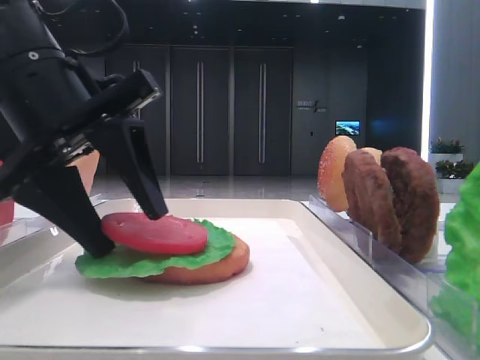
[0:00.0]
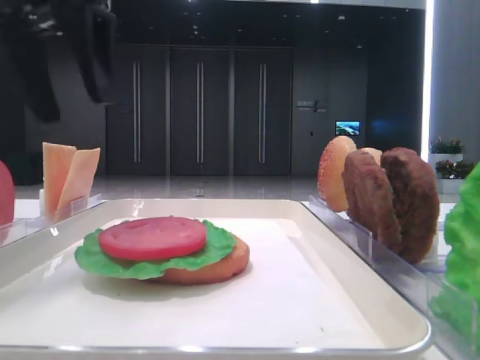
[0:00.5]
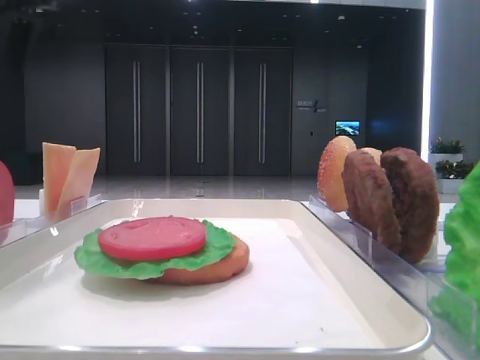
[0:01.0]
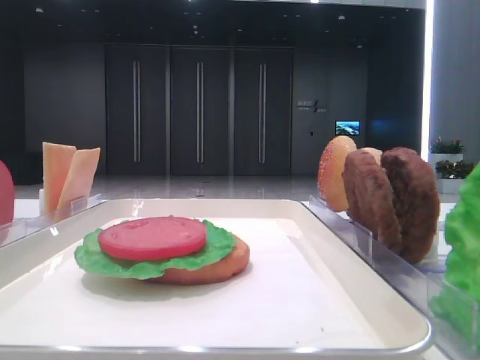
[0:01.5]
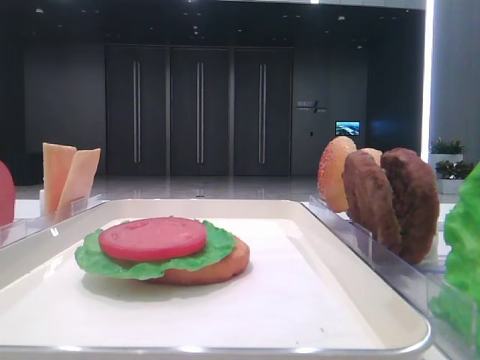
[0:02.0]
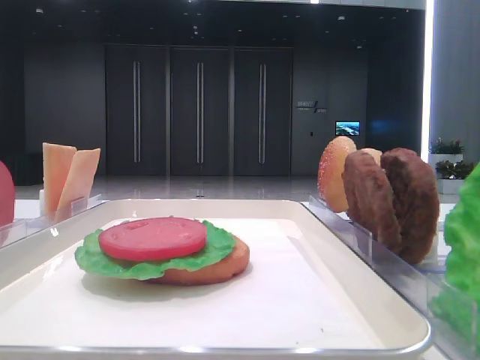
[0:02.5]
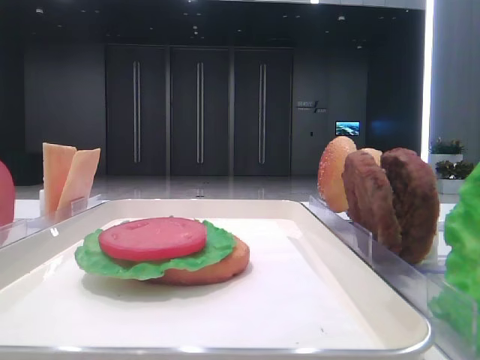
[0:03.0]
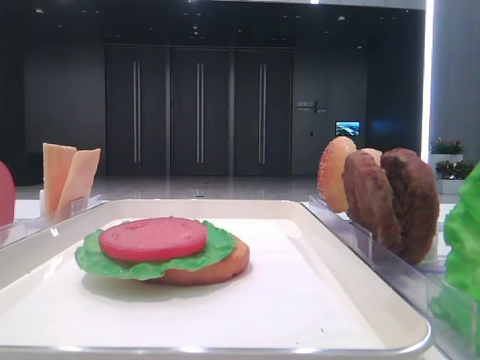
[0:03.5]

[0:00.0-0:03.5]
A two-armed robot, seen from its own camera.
0:00.0 to 0:02.0: The left gripper heads to the left, backward and upward, covering roughly 25 cm.
